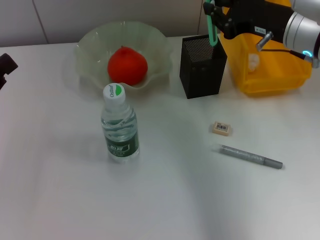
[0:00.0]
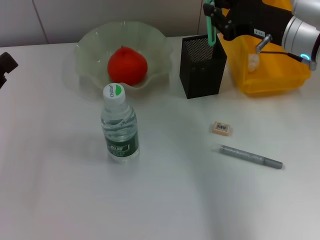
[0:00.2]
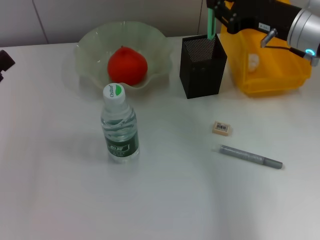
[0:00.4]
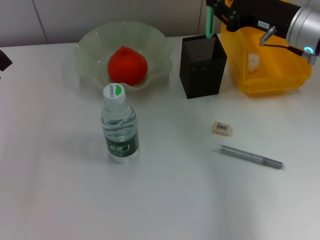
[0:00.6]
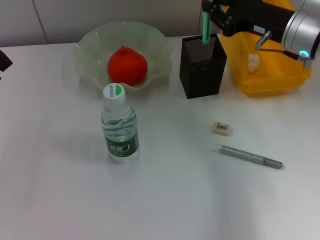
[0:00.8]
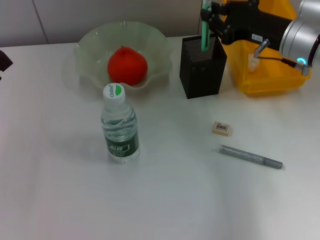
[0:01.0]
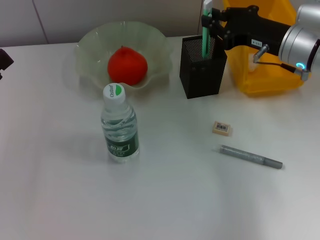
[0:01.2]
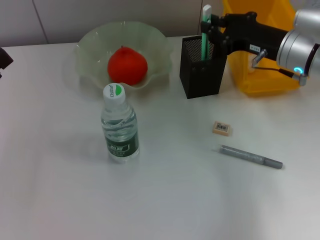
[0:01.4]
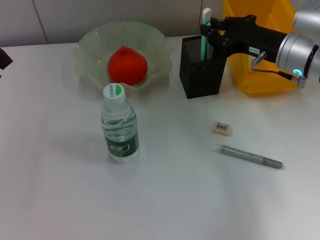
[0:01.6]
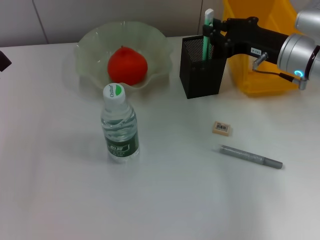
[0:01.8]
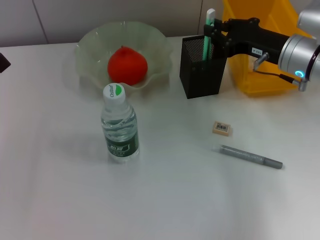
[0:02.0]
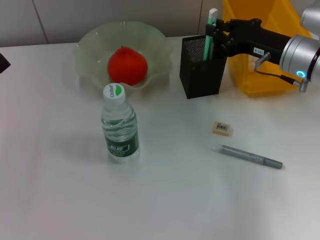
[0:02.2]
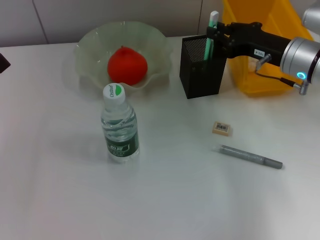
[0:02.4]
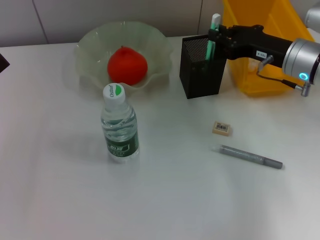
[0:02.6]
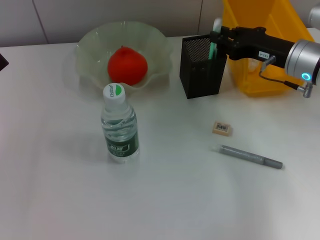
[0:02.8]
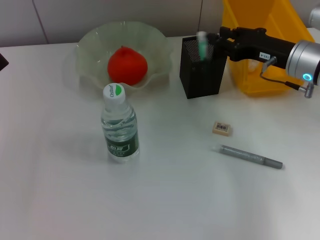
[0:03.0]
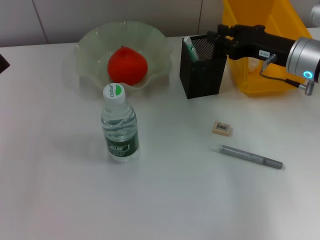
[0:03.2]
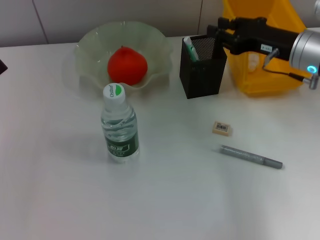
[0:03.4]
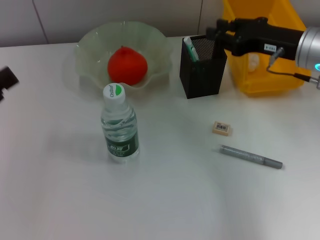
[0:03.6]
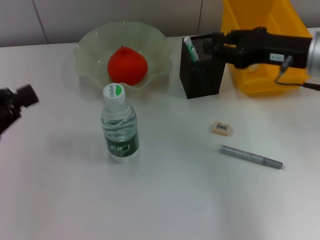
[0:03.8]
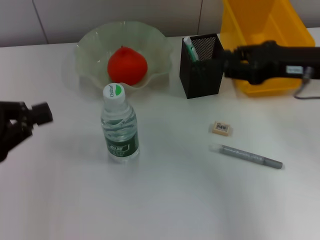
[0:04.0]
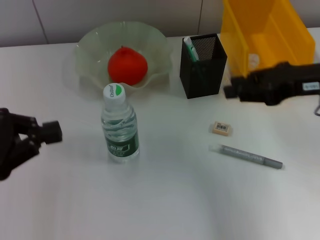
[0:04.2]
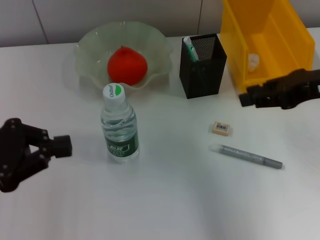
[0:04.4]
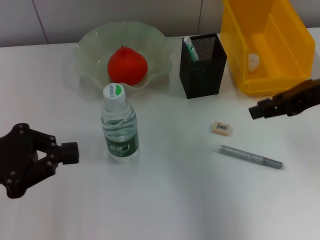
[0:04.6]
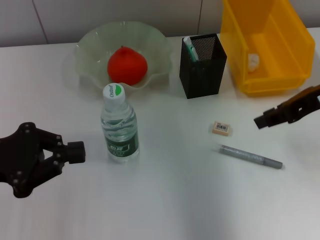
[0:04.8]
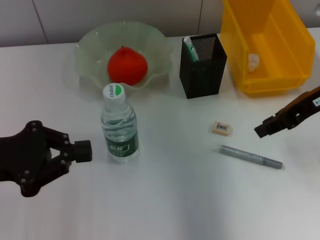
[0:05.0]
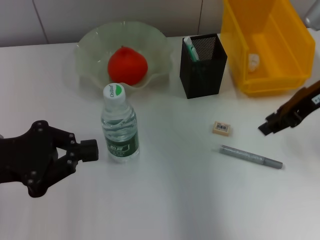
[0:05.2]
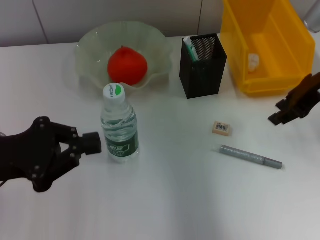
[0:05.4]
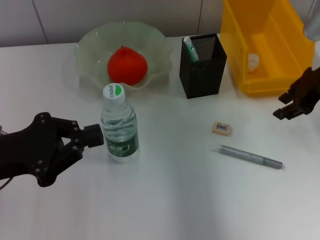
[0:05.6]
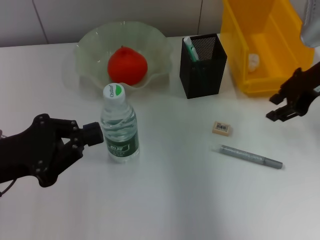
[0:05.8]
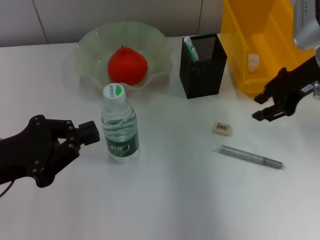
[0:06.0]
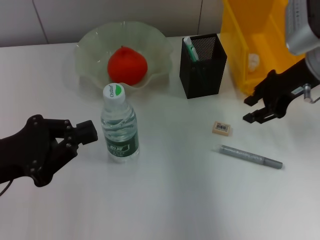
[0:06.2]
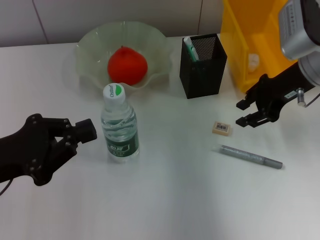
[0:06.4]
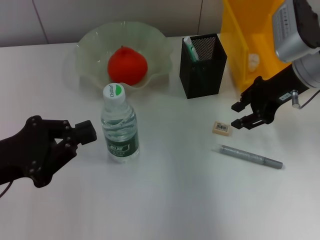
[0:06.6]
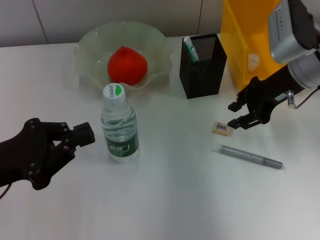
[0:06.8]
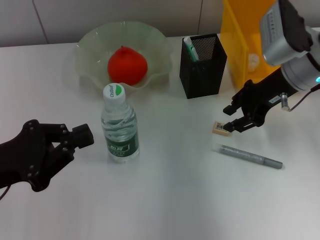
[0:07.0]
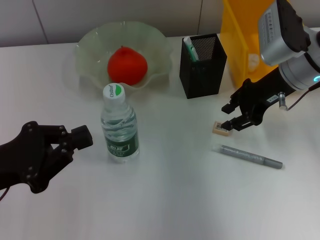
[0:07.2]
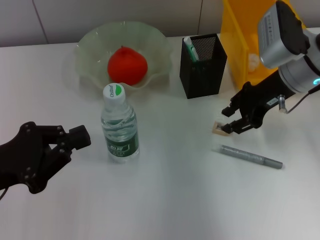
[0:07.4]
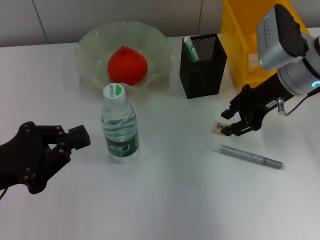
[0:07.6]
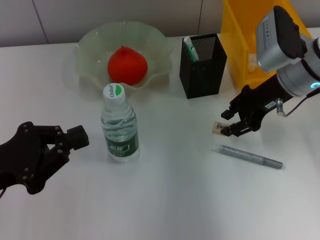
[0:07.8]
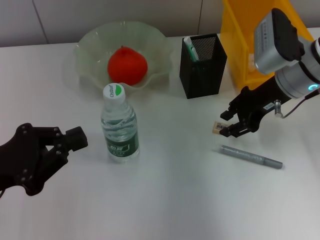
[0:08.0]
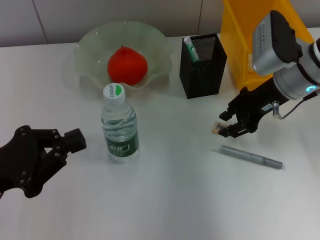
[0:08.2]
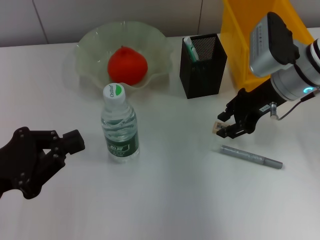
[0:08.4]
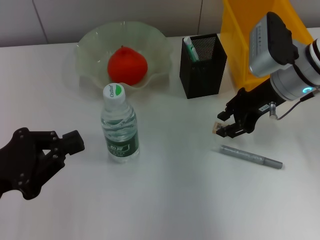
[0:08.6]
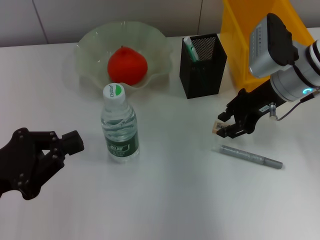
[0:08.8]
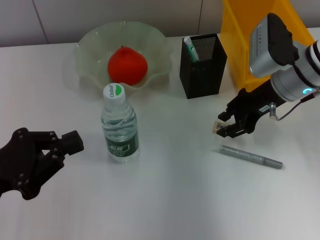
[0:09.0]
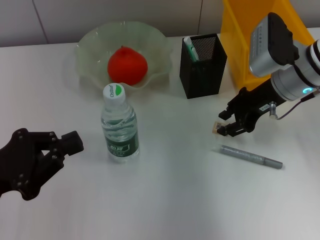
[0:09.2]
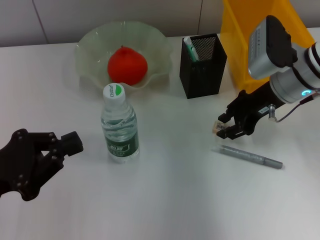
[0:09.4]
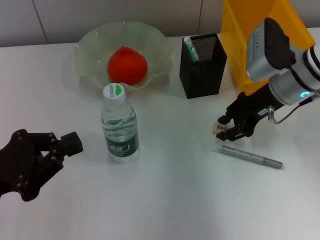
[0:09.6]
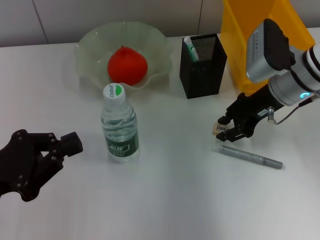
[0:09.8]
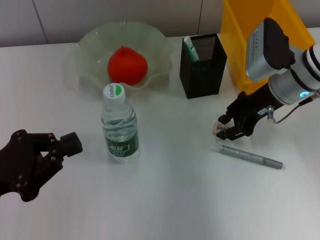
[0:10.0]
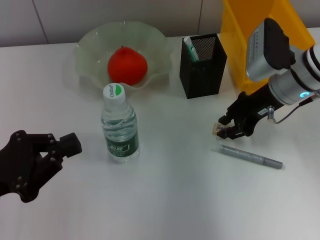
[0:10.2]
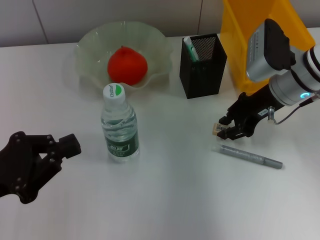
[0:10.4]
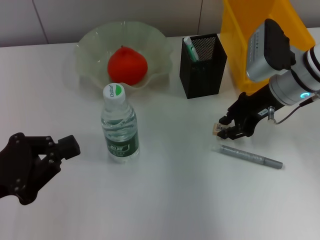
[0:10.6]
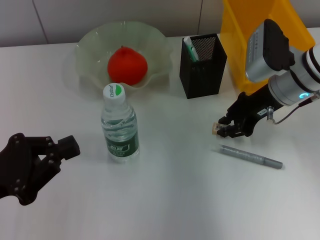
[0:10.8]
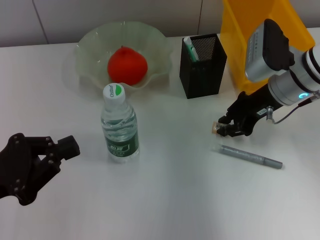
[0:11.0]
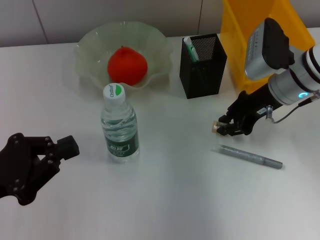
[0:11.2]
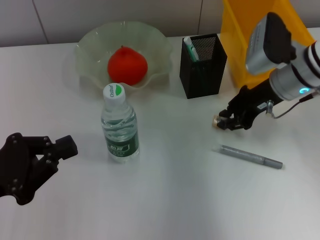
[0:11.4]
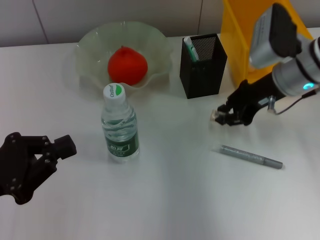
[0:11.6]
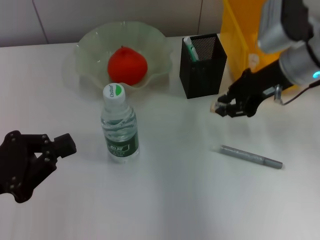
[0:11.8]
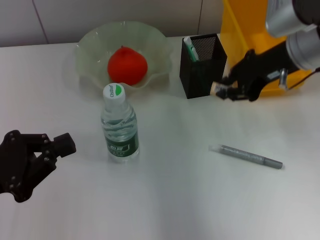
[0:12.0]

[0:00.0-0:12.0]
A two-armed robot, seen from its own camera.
Step, 0:00.0 to 0:03.4: Place the blue utility knife into the pen holder with the right hand.
Step, 0:03.6 to 0:10.8: Grab the eraser with the right hand.
0:00.0 to 0:01.6: The right gripper is displaced downward by approximately 5 cm.
0:01.6 to 0:03.0: The grippers move only a little.
0:03.0 to 0:04.4: The right gripper moves upward and backward, approximately 15 cm.
0:04.4 to 0:06.0: The right gripper goes approximately 10 cm forward.
0:06.0 to 0:07.6: The right gripper changes place by some 5 cm.
0:07.6 to 0:09.0: The grippers move only a little.
0:09.0 to 0:10.4: Both grippers stay put.
0:10.4 to 0:12.0: The right gripper goes approximately 10 cm upward.

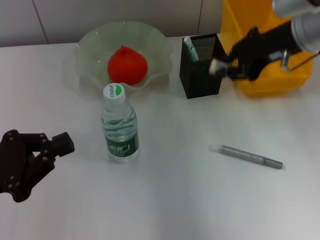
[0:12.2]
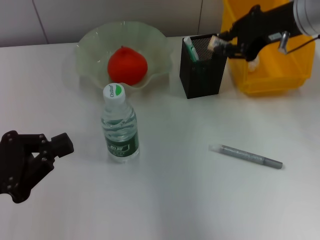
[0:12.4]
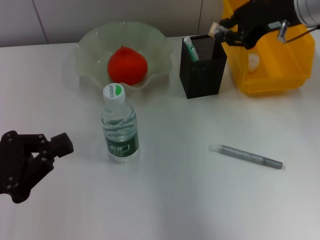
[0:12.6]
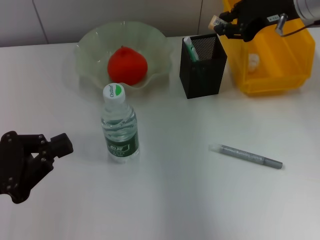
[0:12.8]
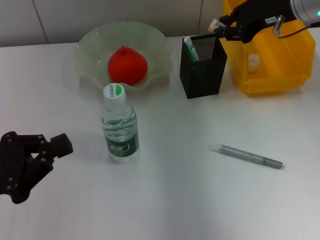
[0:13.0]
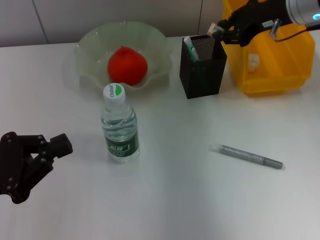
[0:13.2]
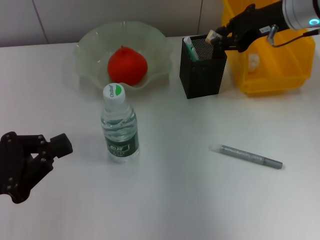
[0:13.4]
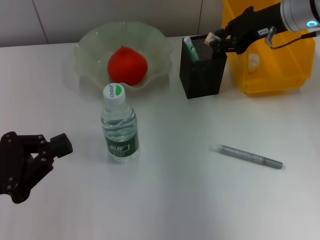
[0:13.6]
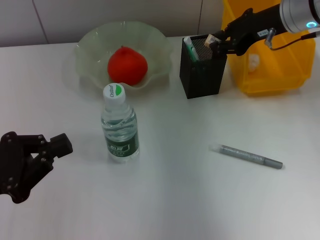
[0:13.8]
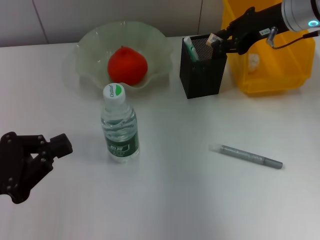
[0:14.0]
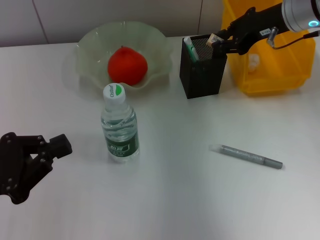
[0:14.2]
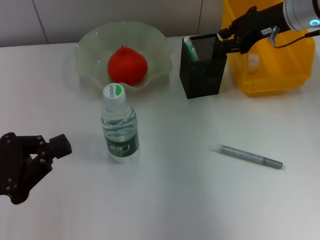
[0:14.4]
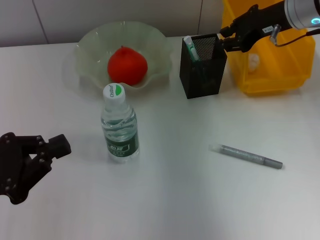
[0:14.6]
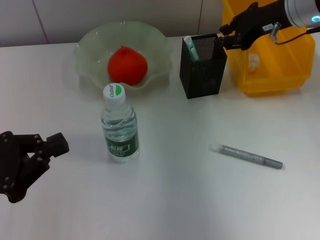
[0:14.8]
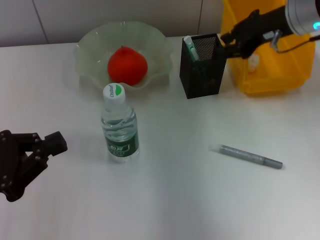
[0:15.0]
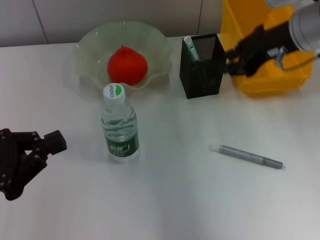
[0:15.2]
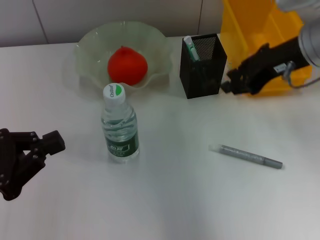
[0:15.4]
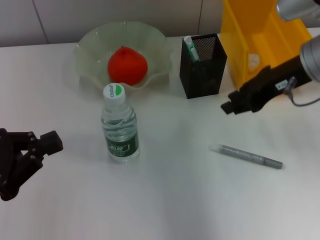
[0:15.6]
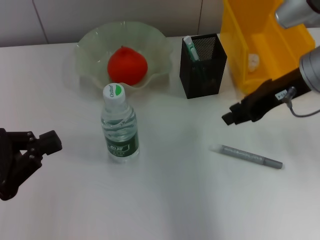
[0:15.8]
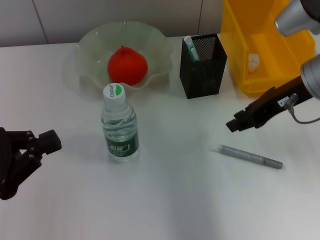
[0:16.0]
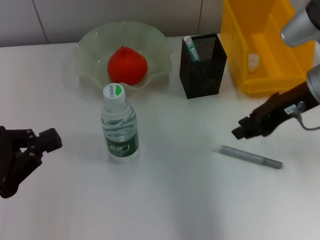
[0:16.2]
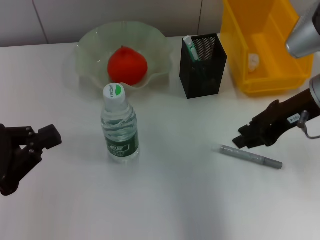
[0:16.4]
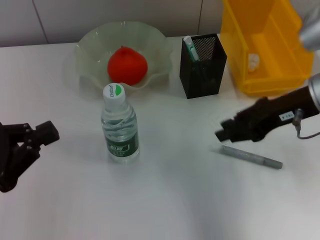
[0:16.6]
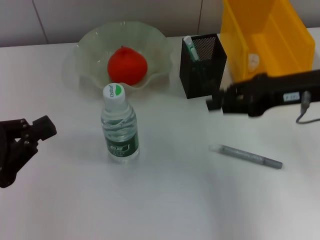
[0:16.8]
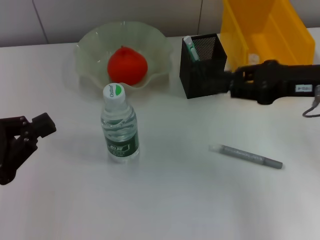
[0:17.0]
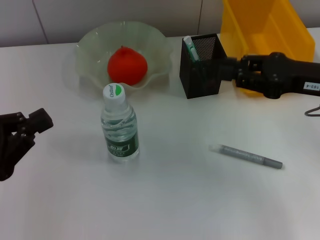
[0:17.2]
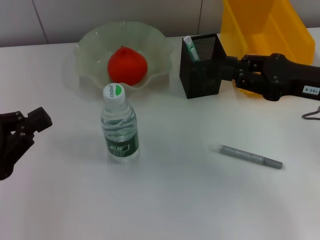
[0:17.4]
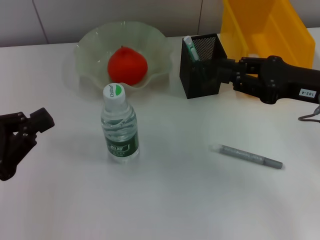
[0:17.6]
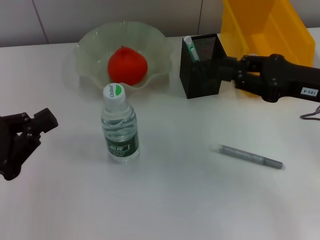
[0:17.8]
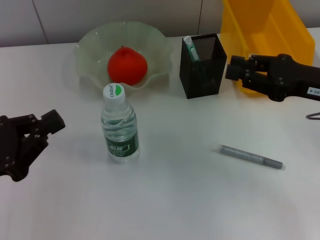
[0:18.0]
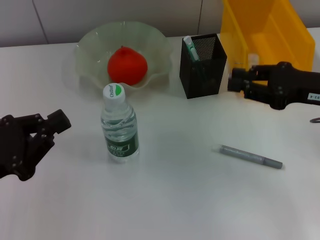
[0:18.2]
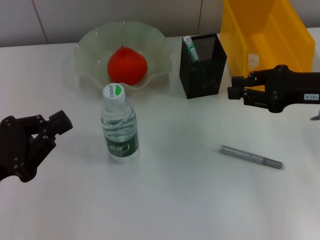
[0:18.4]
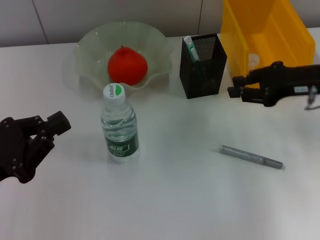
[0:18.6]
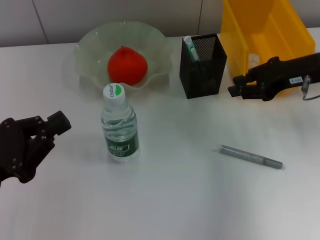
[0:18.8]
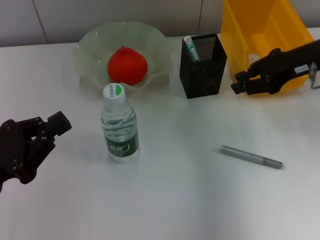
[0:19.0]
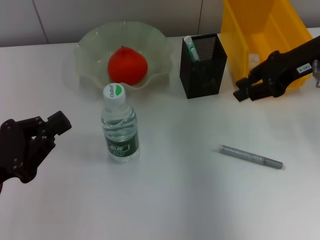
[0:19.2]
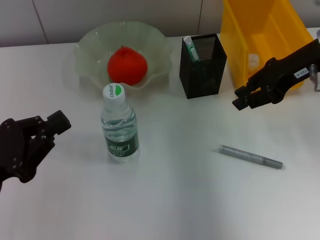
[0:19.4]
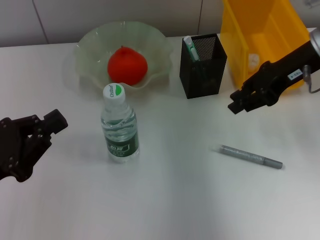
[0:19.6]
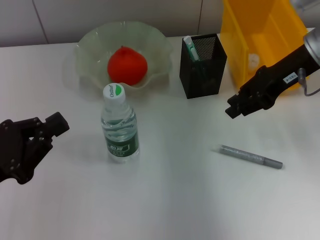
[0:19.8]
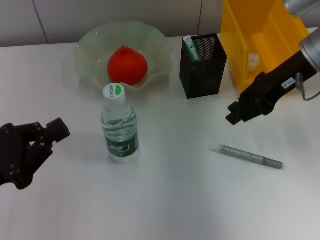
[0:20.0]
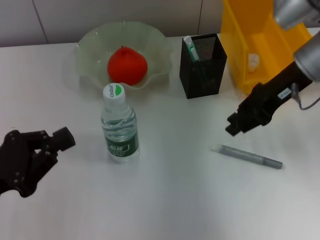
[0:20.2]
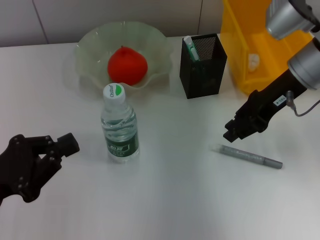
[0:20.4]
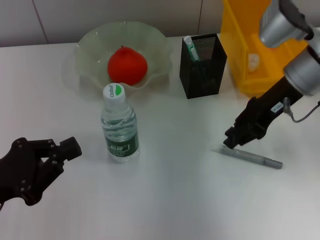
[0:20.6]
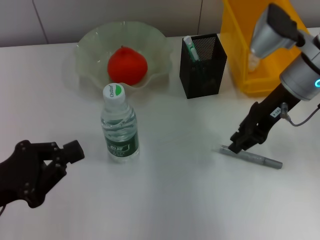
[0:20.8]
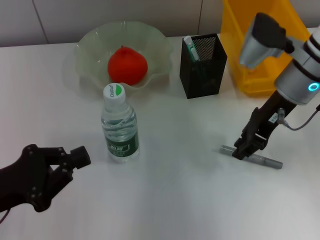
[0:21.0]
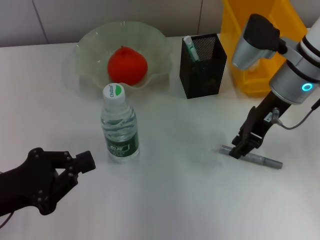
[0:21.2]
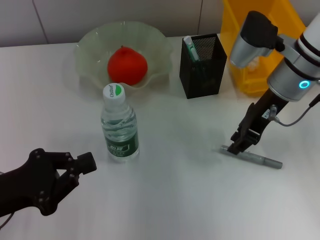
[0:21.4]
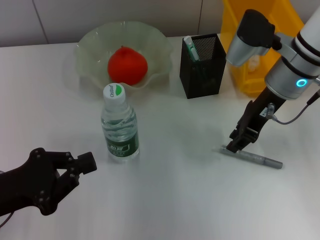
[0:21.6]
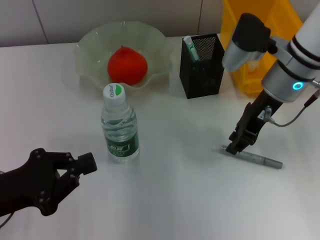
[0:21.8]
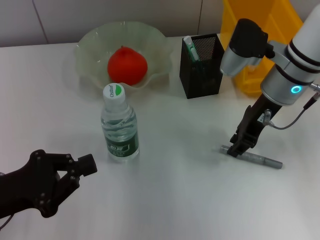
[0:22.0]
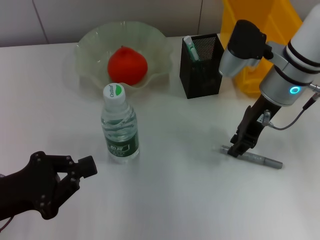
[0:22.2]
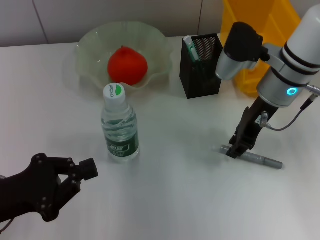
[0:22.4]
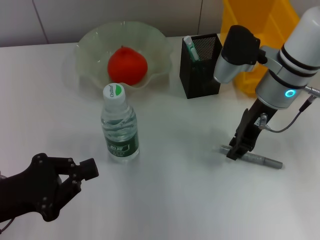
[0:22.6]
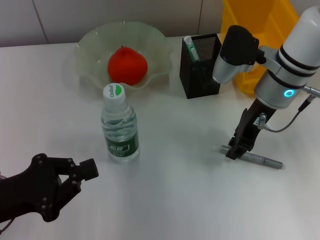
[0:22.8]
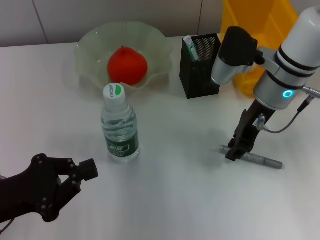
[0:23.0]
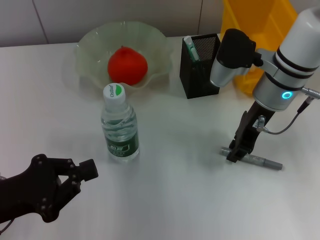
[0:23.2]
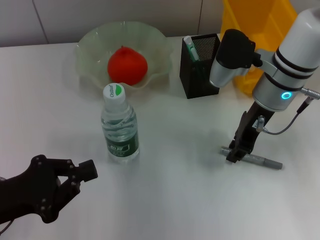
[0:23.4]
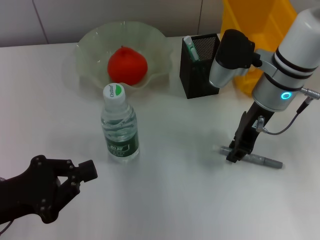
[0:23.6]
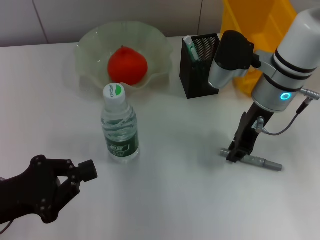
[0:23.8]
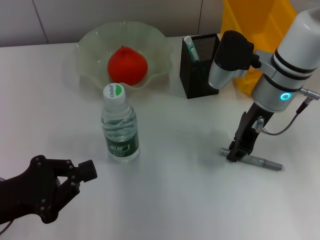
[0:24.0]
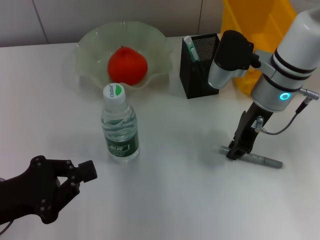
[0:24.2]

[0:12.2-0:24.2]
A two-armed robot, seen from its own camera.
Step, 0:12.2 to 0:14.6: Put the eraser into the pen holder with the right hand.
0:12.2 to 0:13.8: The right gripper shifts some 5 cm forward.
0:13.8 to 0:15.2: The right gripper moves backward, some 5 cm.
0:15.2 to 0:16.6: The right gripper goes approximately 5 cm backward.
0:16.6 to 0:18.2: The right gripper travels to the right by roughly 5 cm.
0:18.2 to 0:19.8: The right gripper shifts approximately 10 cm forward and upward.
0:19.8 to 0:21.2: The right gripper shifts by approximately 5 cm.
0:21.2 to 0:22.6: The grippers stay close to where they were, moving slightly.
0:22.6 to 0:24.2: Neither gripper changes place.
